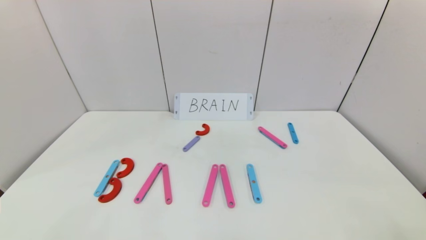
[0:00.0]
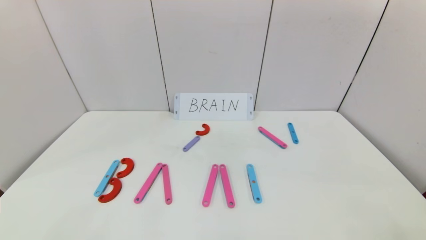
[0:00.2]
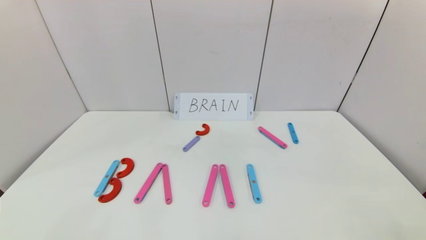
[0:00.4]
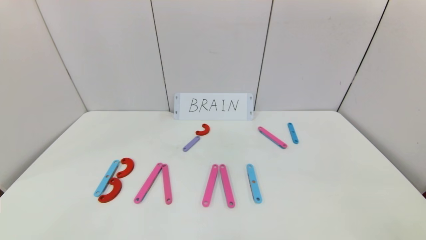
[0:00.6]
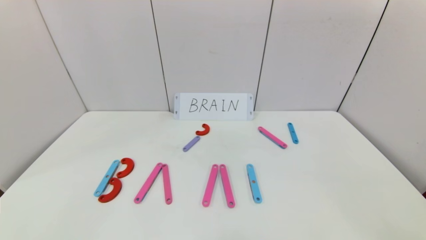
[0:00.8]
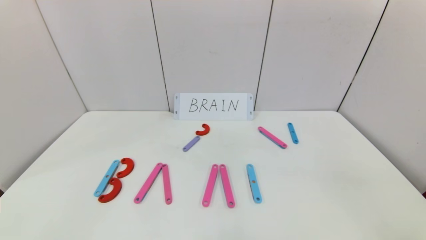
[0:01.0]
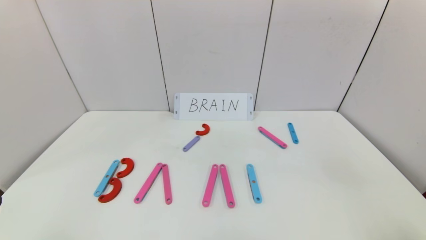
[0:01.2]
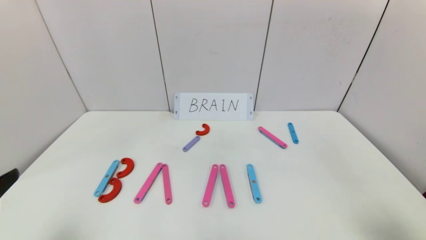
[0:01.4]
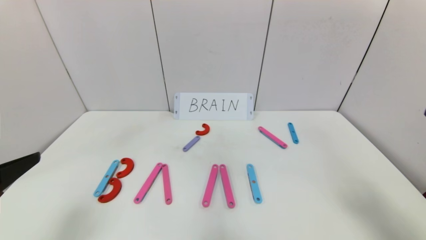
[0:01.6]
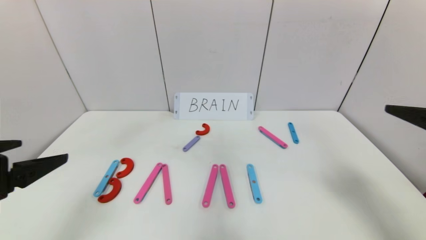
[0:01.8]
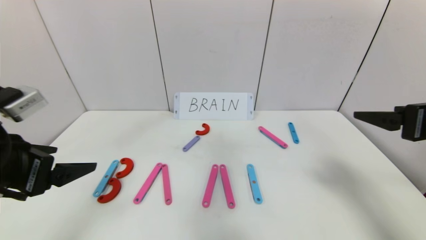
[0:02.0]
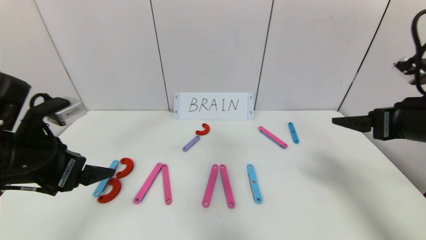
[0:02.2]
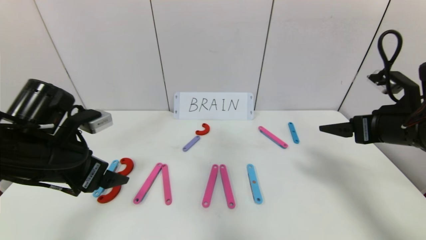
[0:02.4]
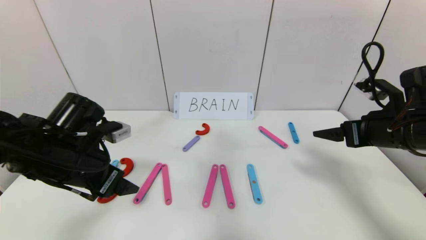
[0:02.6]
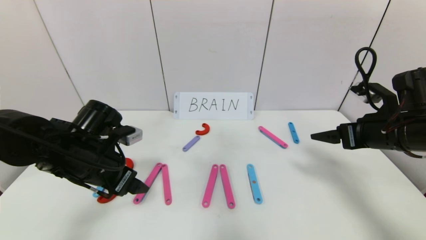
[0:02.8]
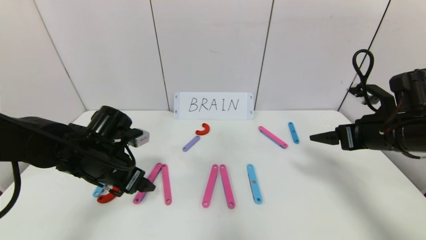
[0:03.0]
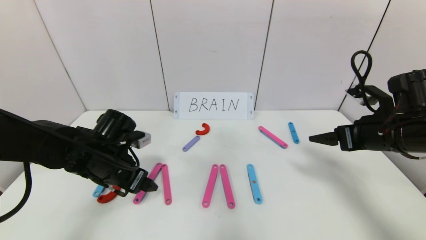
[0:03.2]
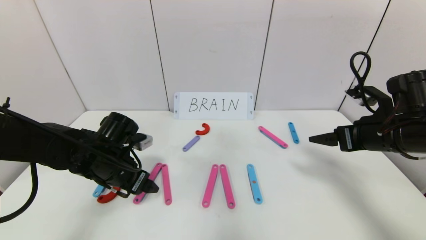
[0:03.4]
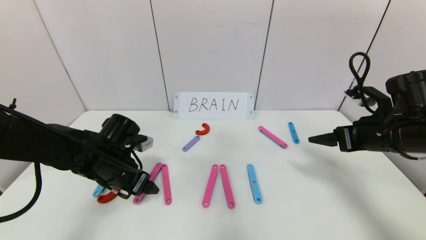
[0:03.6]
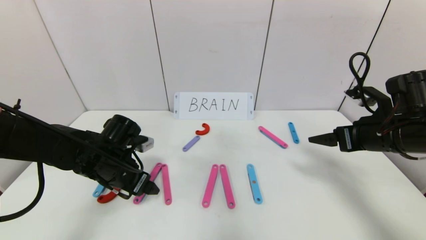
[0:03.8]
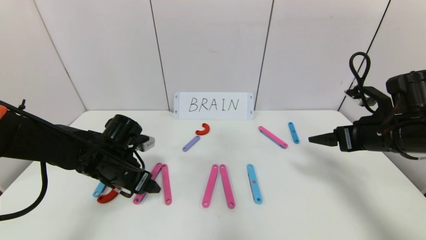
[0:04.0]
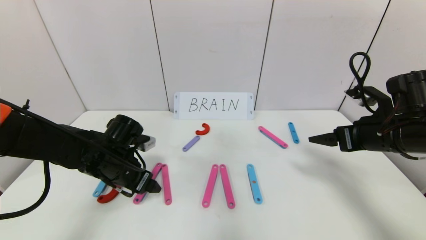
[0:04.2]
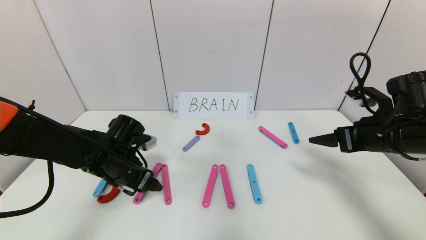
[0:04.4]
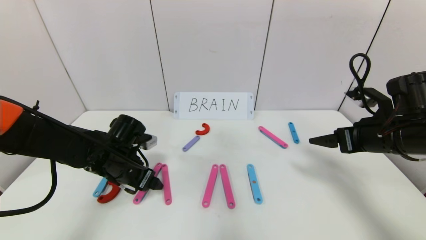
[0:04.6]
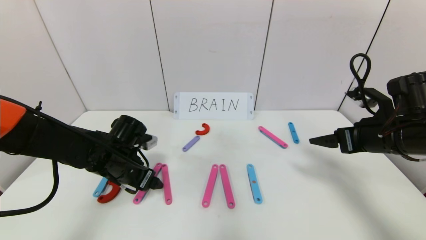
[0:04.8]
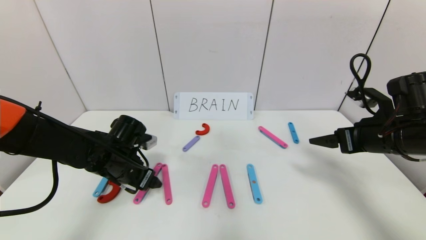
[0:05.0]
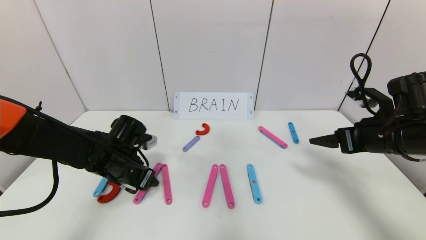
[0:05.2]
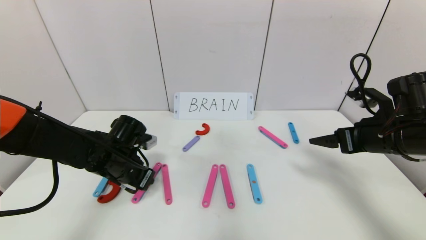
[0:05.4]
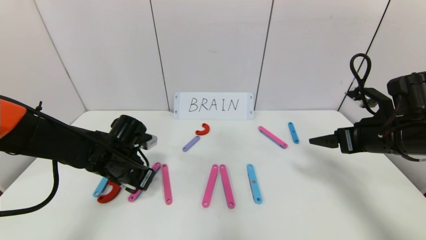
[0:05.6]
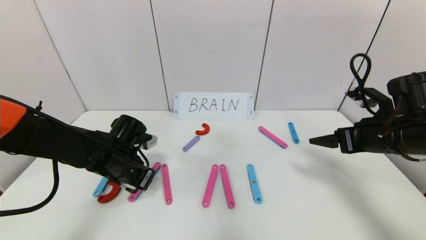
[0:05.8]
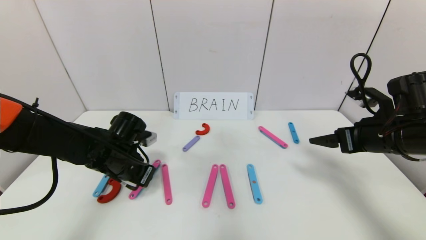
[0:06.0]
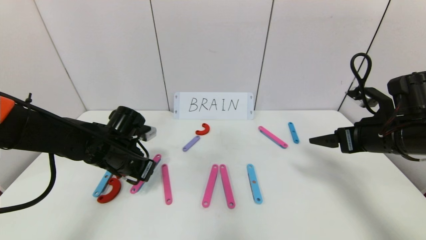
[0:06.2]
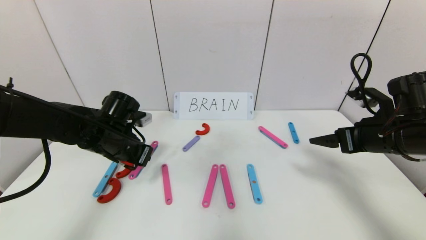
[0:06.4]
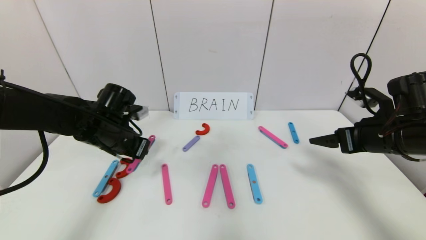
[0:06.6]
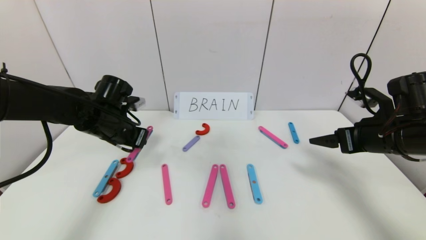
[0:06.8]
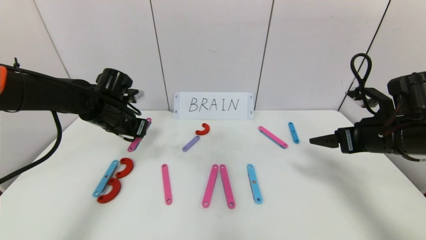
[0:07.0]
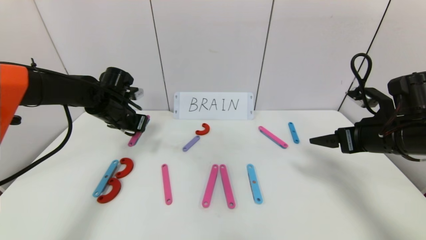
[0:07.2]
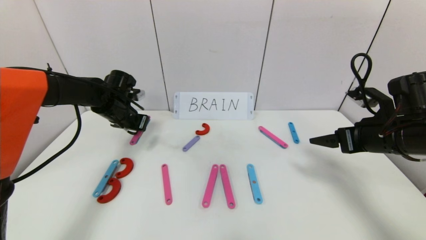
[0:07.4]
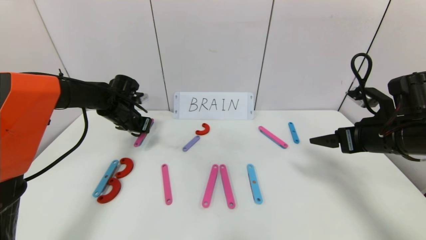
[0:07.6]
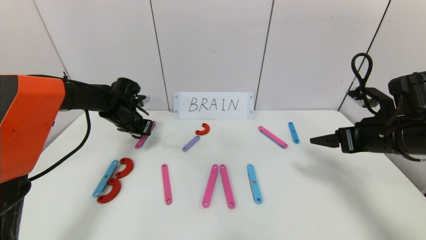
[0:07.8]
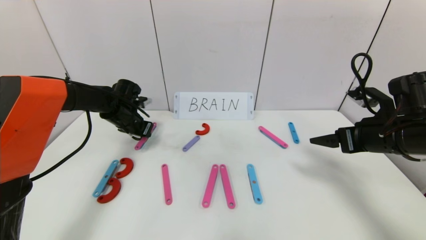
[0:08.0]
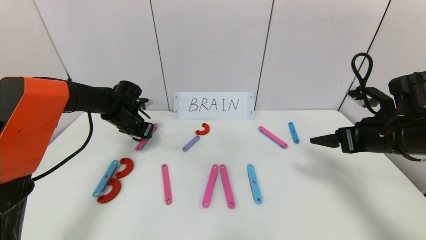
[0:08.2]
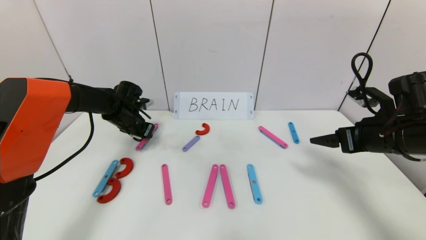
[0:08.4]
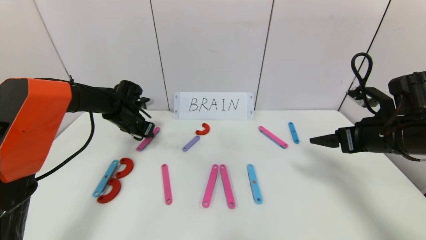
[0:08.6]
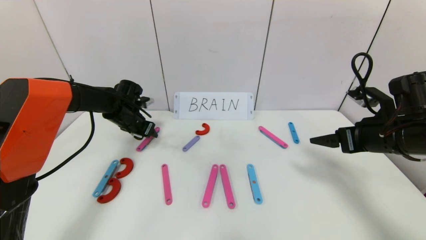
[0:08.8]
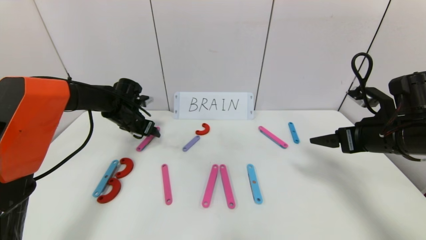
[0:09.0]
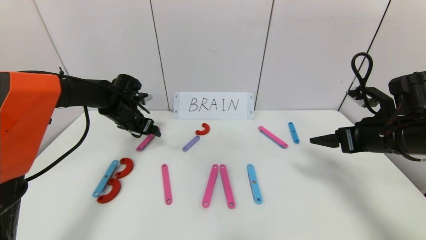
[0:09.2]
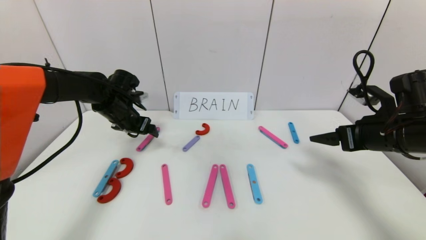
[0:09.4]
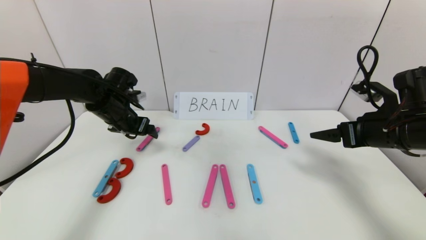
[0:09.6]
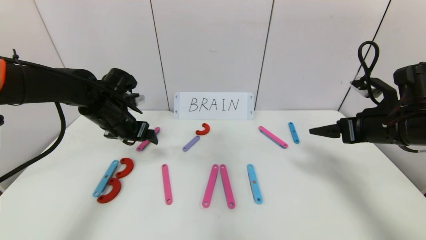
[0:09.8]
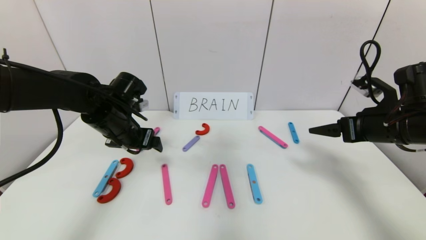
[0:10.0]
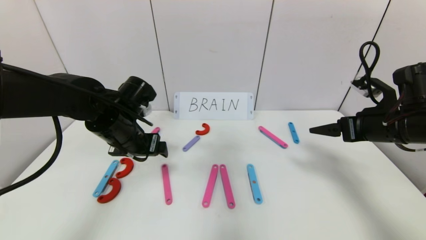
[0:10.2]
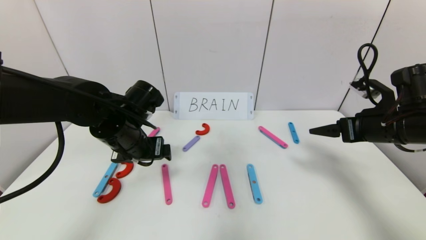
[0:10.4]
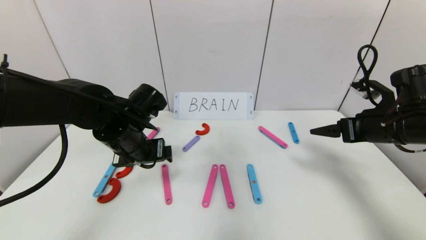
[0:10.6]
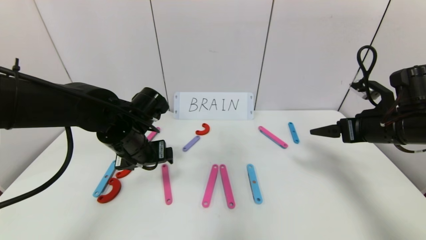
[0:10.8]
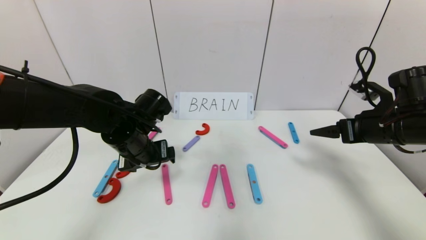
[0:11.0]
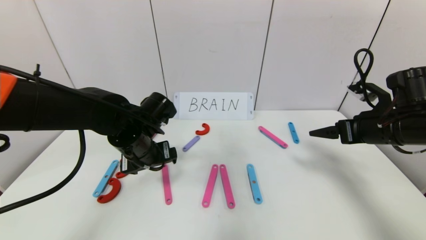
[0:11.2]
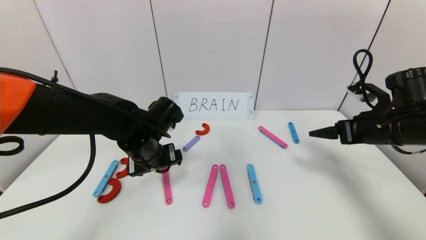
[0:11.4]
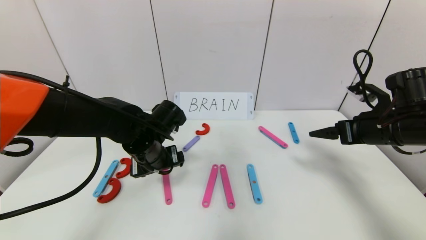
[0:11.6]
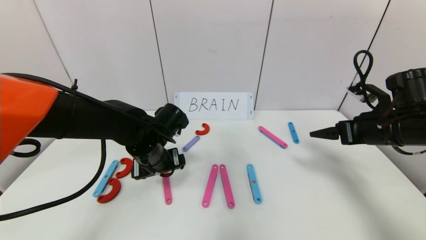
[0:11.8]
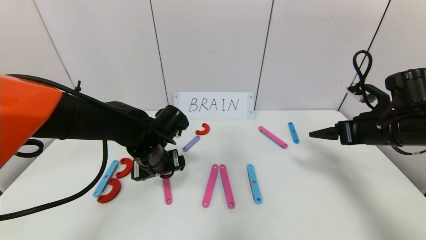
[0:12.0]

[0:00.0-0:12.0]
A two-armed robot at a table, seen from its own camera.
Task of the whole recording: rearrange the word baai as brain.
0:00.0 to 0:01.6: The grippers both shift upward and forward by approximately 20 cm.
0:01.6 to 0:03.0: The left gripper heads forward, downward and to the right, covering some 25 cm; the right gripper goes some 20 cm forward and downward.
0:03.0 to 0:04.4: There are only small adjustments of the grippers.
0:04.4 to 0:06.0: The left gripper closes its fingers.
0:06.0 to 0:07.6: The left gripper travels forward by some 15 cm.
0:07.6 to 0:09.0: The left gripper opens its fingers.
0:09.0 to 0:10.4: The left gripper is displaced backward and to the right by some 20 cm.
0:10.4 to 0:12.0: The left gripper shifts some 5 cm downward.

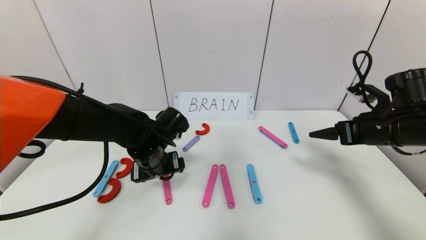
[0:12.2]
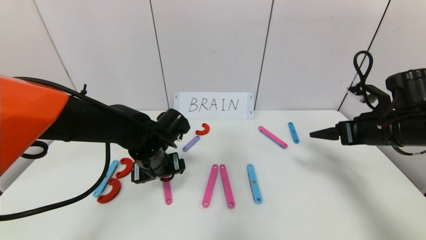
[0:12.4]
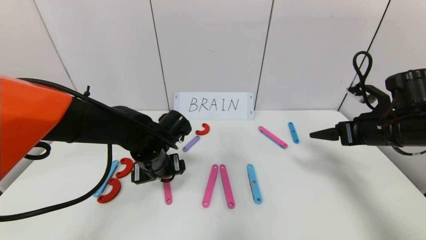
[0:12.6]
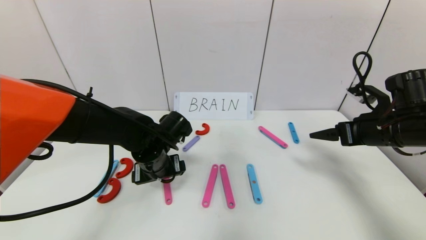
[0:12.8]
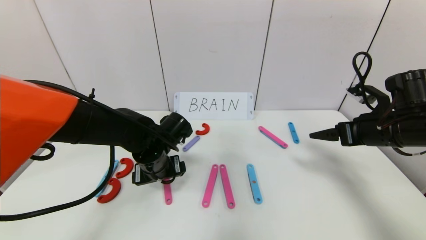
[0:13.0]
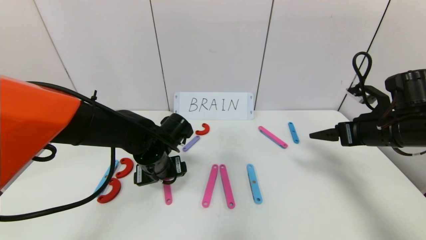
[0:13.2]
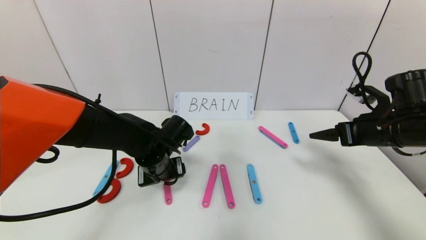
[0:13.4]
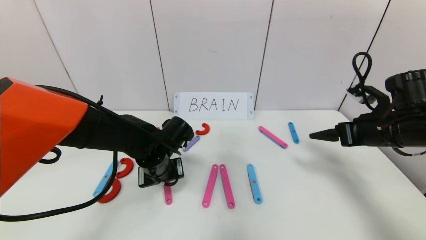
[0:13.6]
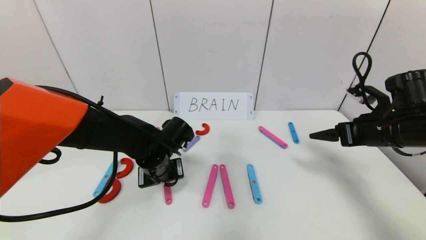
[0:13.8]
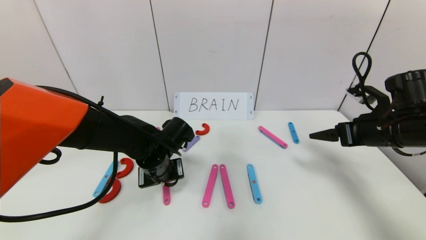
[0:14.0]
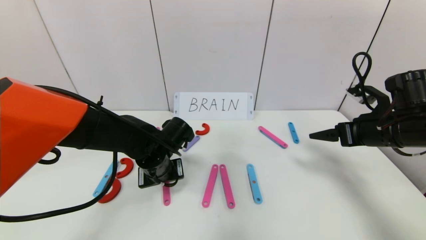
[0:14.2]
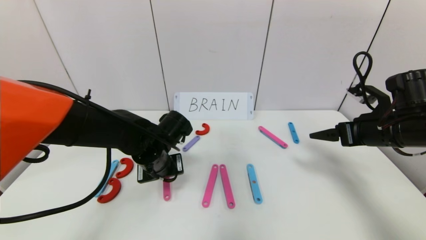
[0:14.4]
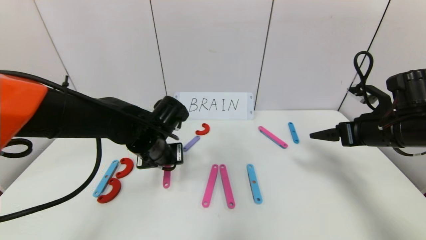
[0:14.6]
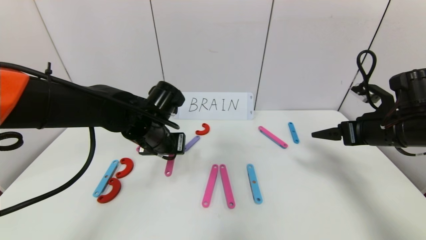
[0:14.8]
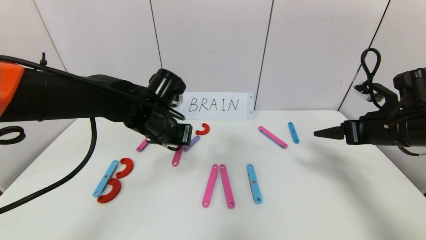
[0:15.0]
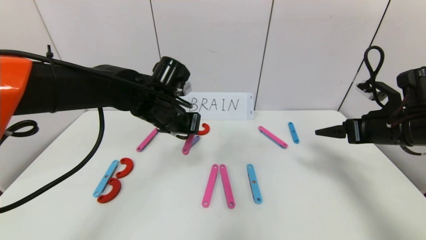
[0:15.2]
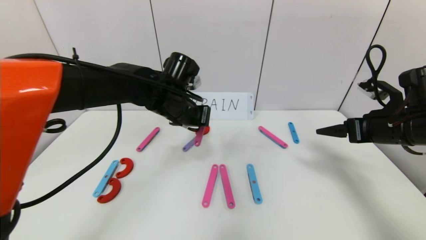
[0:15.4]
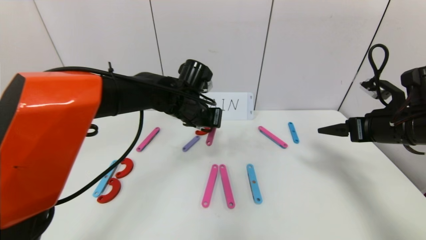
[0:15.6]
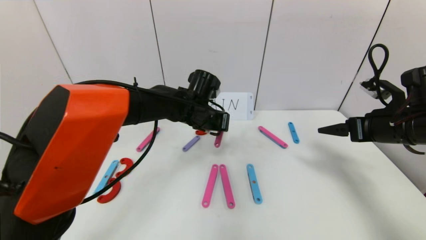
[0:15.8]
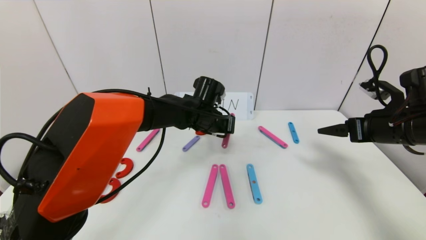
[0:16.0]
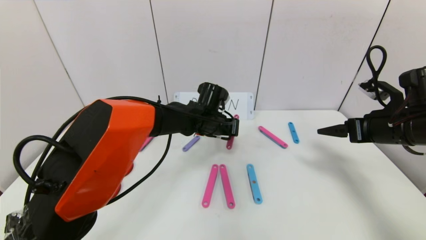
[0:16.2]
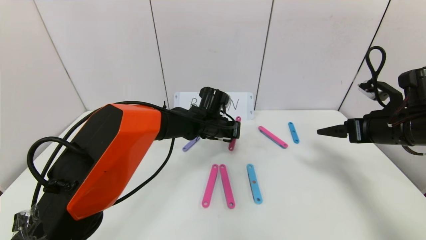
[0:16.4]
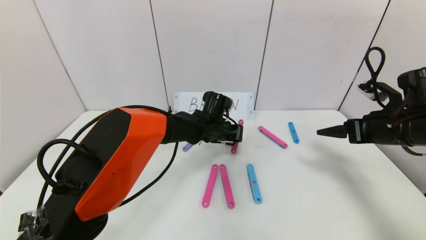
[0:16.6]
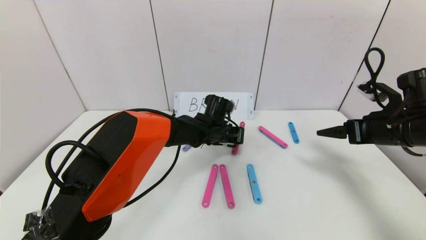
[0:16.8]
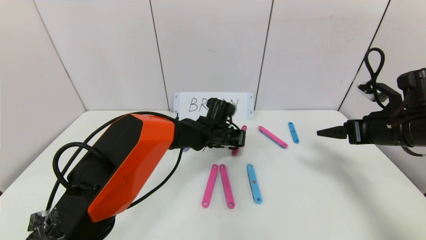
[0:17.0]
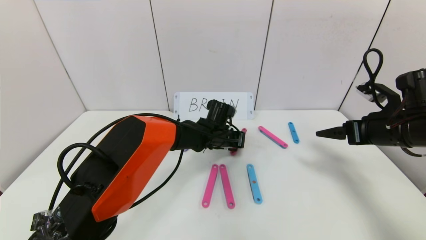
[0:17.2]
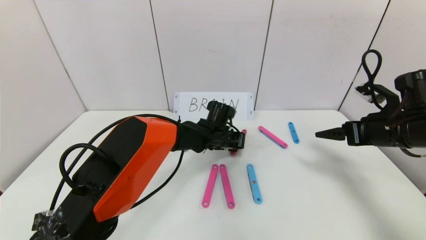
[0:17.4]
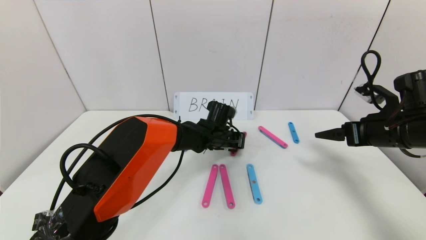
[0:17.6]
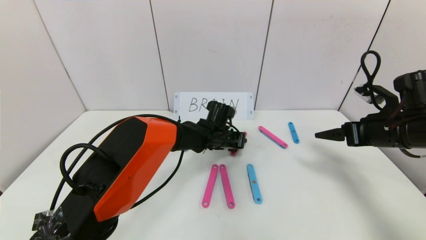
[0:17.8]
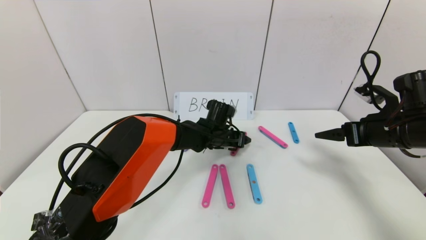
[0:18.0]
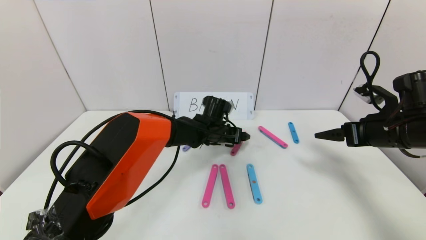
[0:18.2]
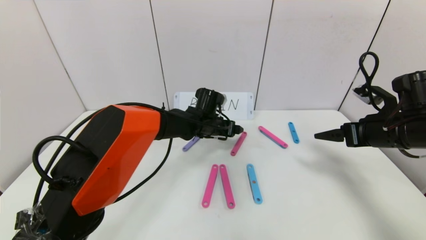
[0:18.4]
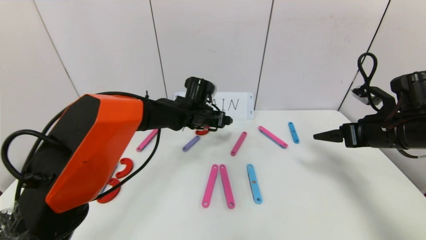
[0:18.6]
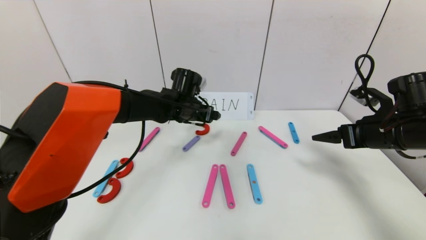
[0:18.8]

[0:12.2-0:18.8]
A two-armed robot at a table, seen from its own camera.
Task of the whole recording: rearrange the word baai as brain.
Step, 0:12.2 to 0:18.2: Disassemble the second character A.
0:12.2 to 0:13.8: The left gripper closes its fingers.
0:13.8 to 0:15.4: The left gripper heads upward and forward, covering some 15 cm.
0:15.4 to 0:17.2: The left gripper goes some 15 cm downward, to the right and forward.
0:17.2 to 0:18.8: The left gripper heads to the left and upward, covering approximately 15 cm, and opens.
